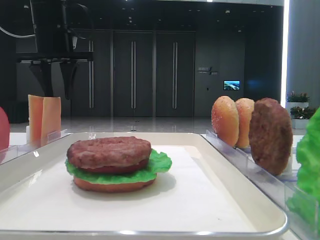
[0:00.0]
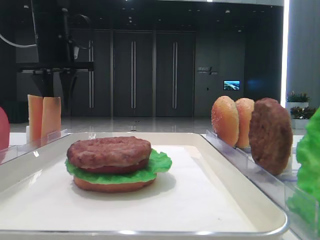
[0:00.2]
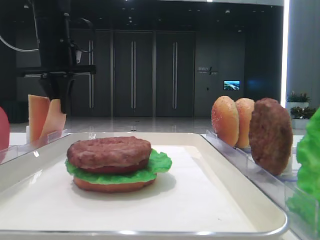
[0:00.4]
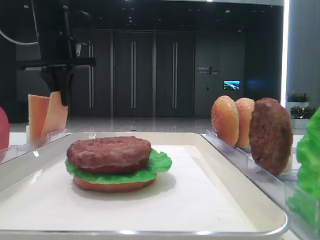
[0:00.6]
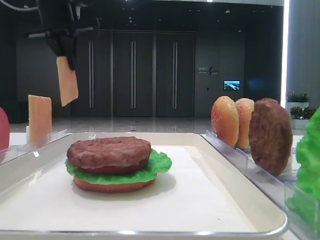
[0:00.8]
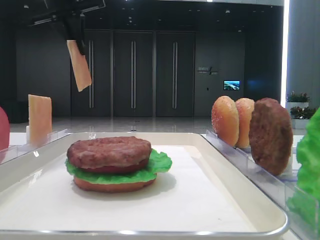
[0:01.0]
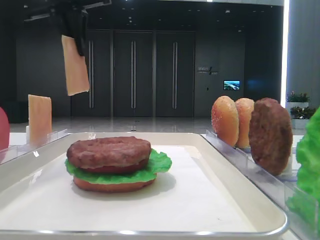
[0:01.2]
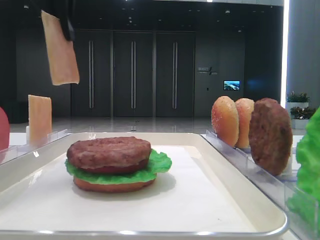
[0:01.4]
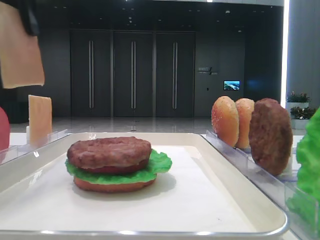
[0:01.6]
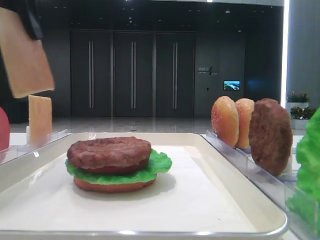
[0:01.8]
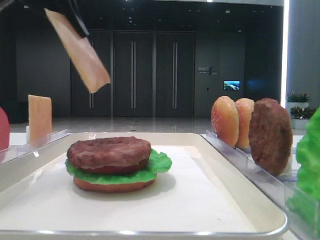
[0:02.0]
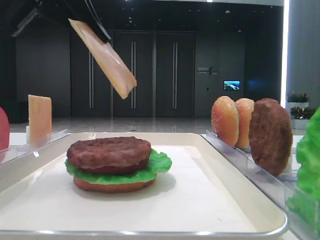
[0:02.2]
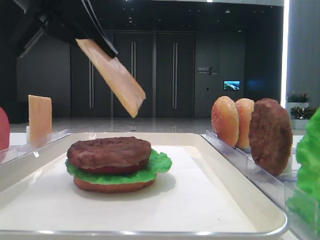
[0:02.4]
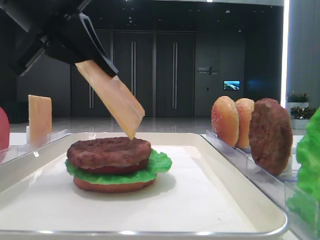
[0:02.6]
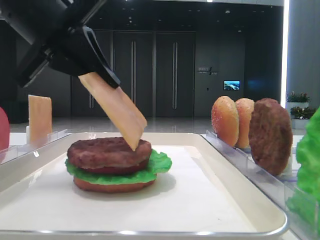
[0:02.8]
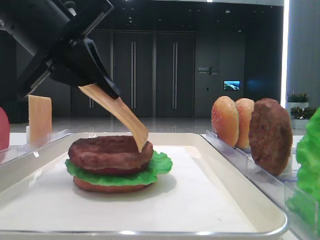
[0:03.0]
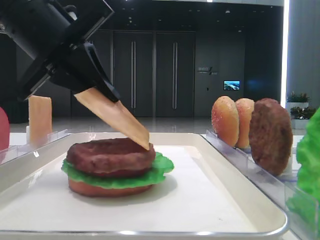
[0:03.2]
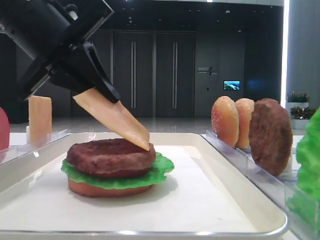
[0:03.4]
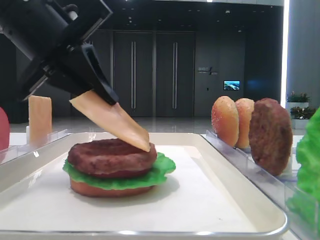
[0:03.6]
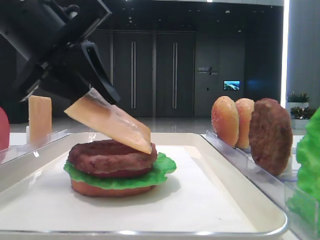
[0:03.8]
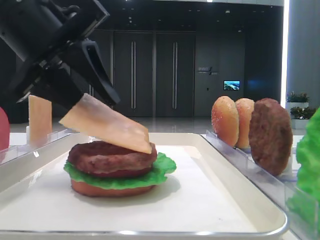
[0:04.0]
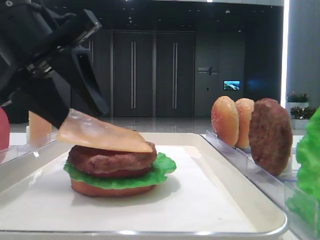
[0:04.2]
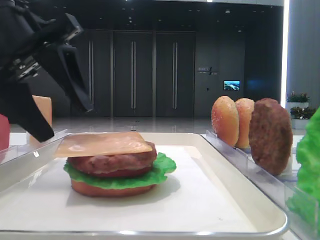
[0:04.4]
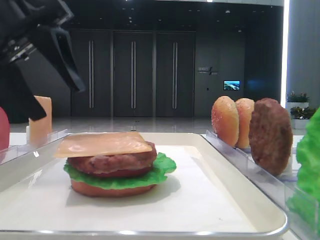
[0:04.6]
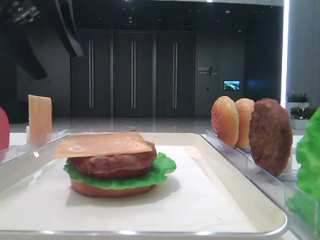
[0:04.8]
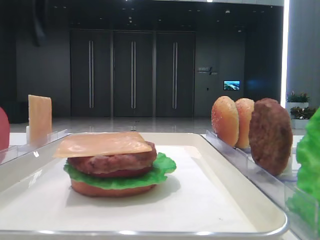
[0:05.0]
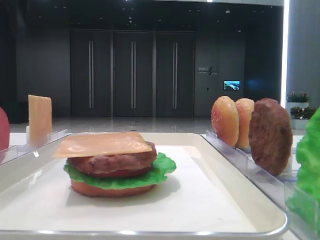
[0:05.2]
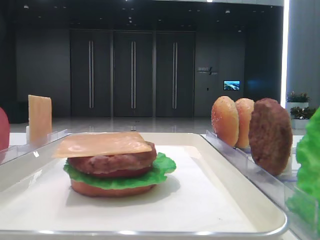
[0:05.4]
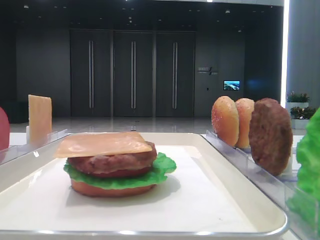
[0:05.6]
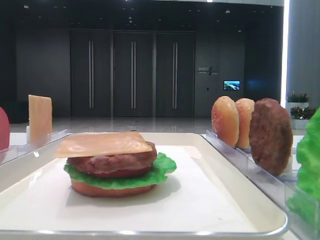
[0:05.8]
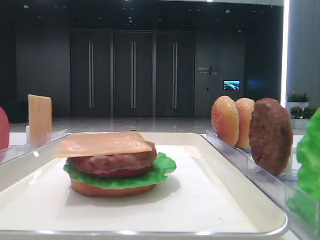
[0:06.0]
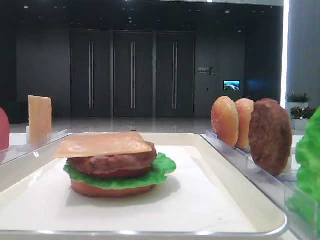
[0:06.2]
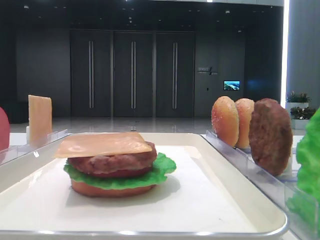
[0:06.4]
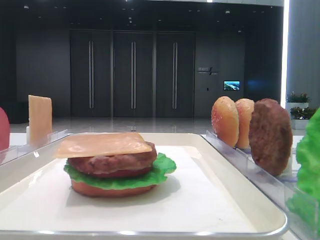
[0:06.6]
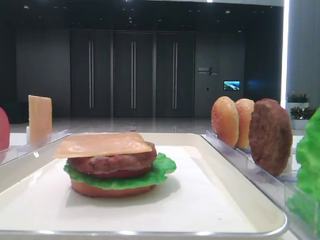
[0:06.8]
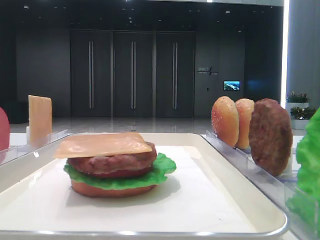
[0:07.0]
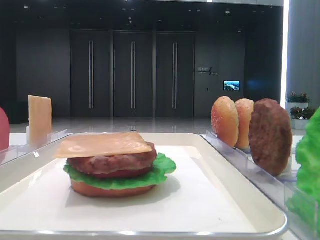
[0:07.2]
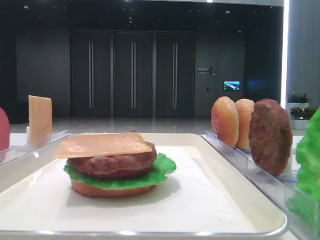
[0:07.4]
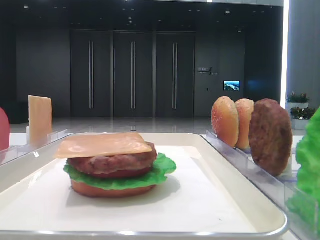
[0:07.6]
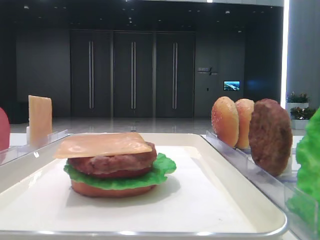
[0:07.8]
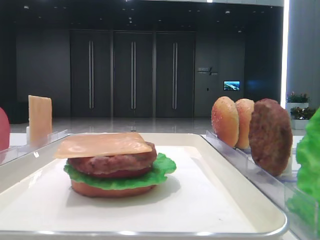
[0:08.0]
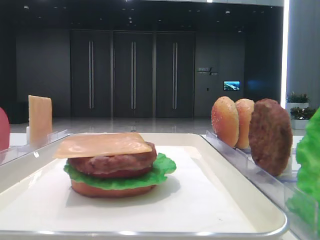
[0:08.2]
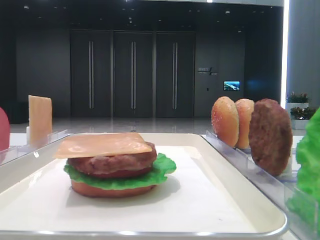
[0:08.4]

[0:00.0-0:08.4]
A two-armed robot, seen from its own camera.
Step, 0:00.8 to 0:04.2: Place the cheese slice on the patty with the left hand.
0:00.0 to 0:01.4: The left gripper heads backward and upward, covering approximately 15 cm, and closes.
0:01.4 to 0:02.8: The left gripper heads downward and backward, covering about 15 cm.
0:02.8 to 0:04.2: The left gripper opens.
0:04.2 to 0:05.6: The left gripper is displaced to the left and upward by about 20 cm.

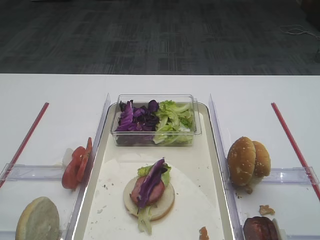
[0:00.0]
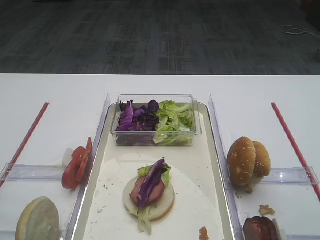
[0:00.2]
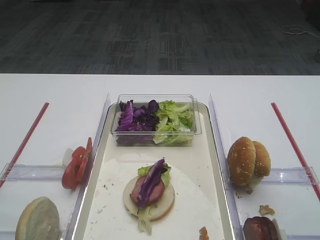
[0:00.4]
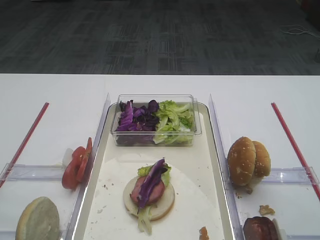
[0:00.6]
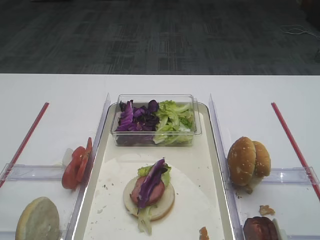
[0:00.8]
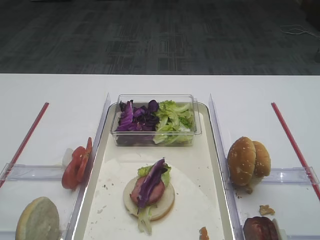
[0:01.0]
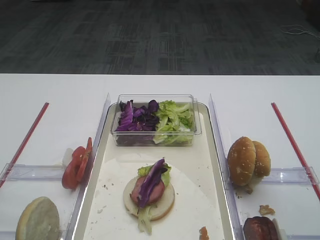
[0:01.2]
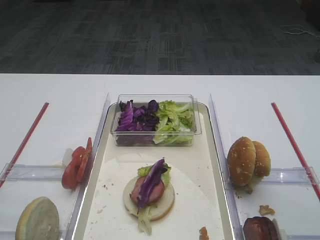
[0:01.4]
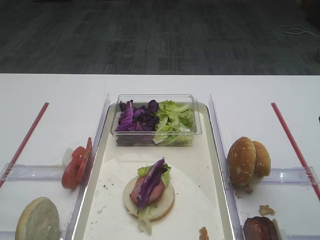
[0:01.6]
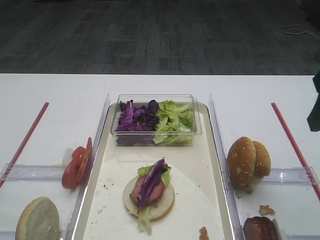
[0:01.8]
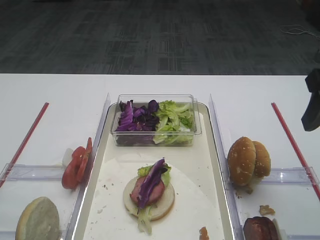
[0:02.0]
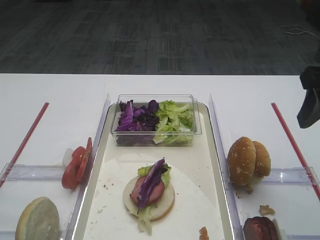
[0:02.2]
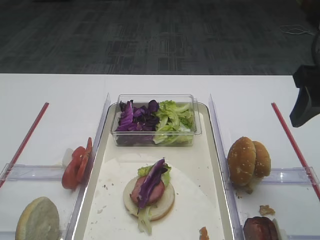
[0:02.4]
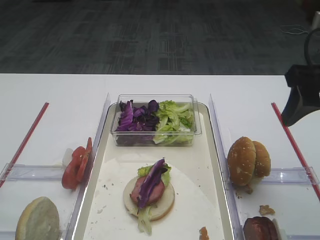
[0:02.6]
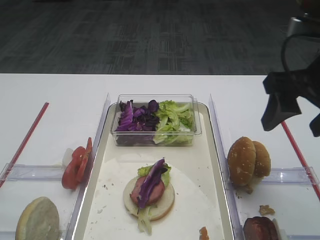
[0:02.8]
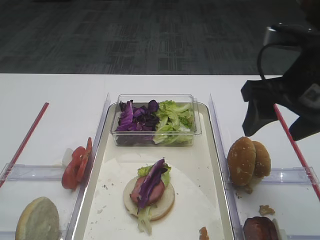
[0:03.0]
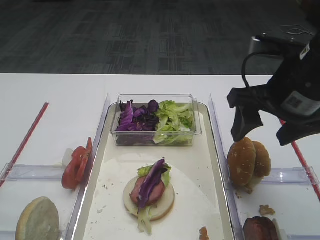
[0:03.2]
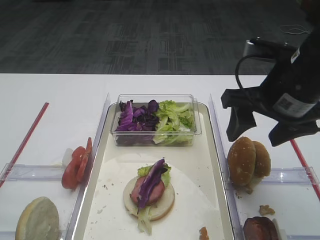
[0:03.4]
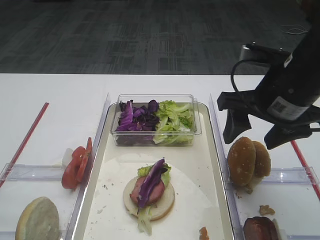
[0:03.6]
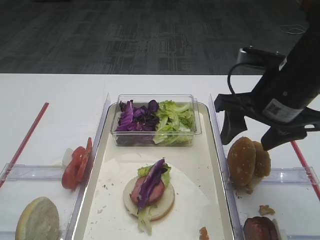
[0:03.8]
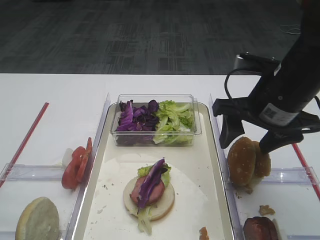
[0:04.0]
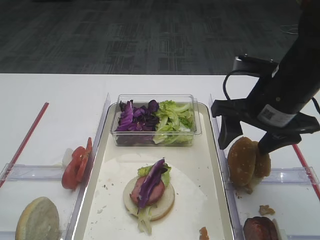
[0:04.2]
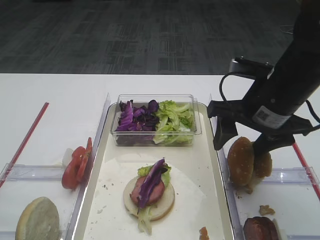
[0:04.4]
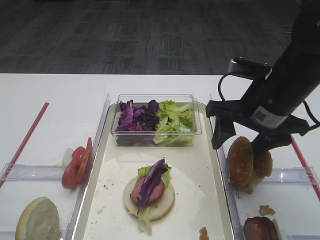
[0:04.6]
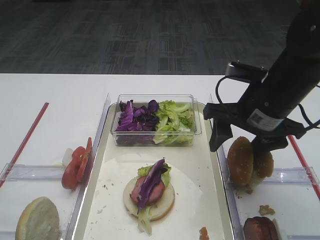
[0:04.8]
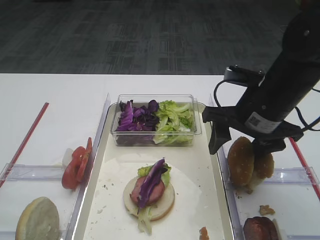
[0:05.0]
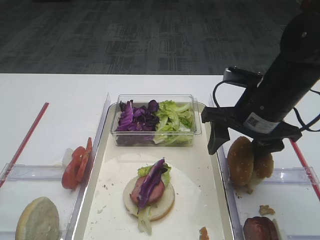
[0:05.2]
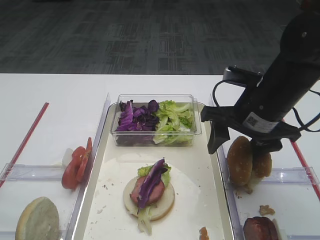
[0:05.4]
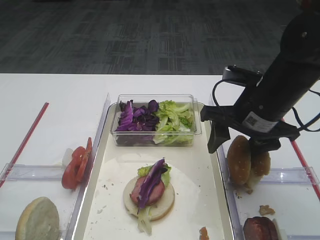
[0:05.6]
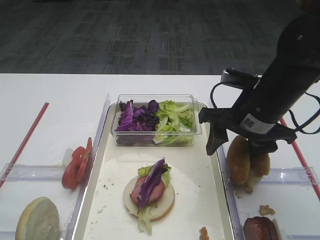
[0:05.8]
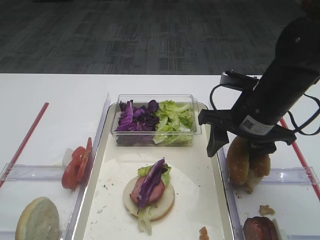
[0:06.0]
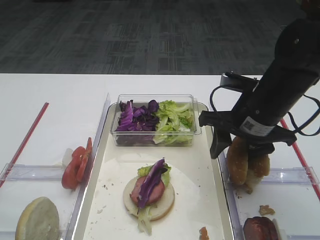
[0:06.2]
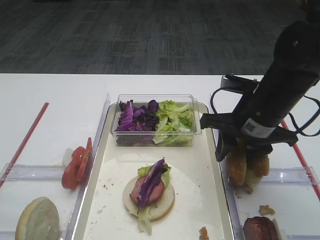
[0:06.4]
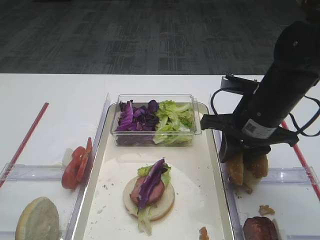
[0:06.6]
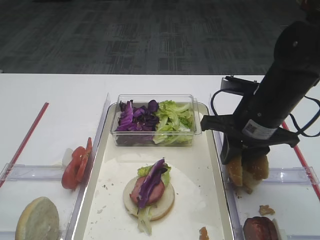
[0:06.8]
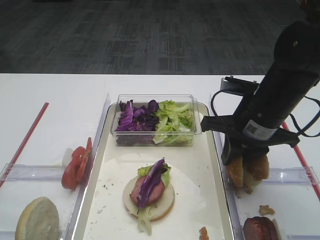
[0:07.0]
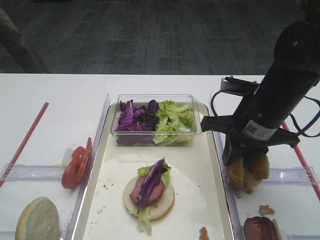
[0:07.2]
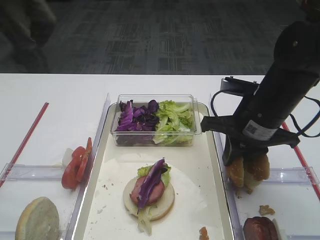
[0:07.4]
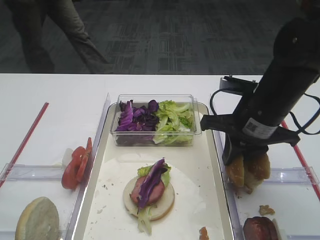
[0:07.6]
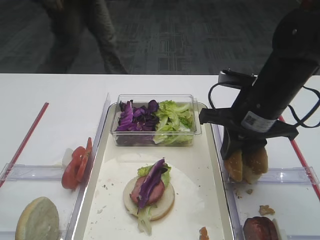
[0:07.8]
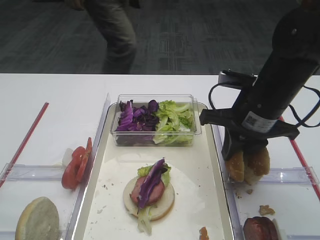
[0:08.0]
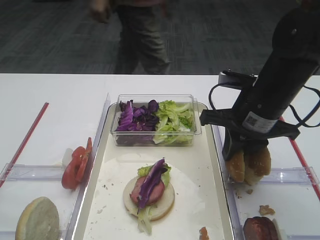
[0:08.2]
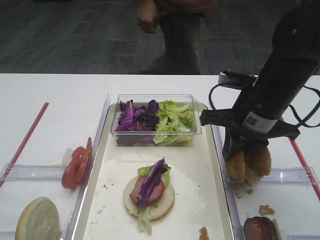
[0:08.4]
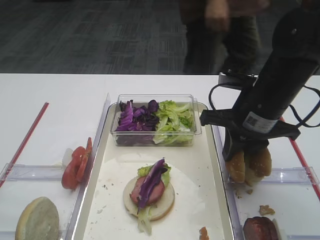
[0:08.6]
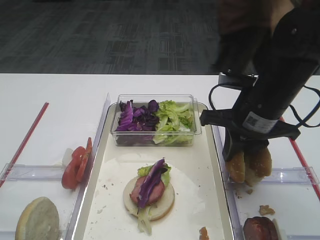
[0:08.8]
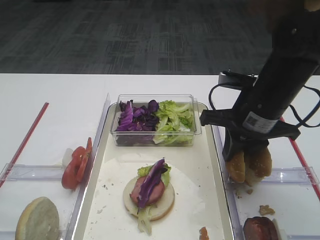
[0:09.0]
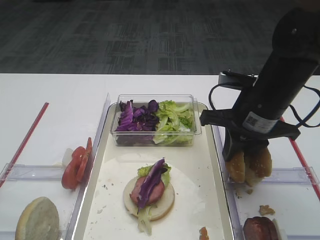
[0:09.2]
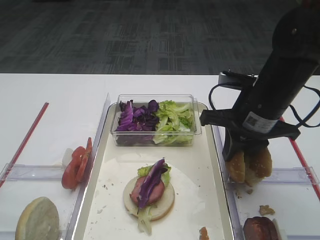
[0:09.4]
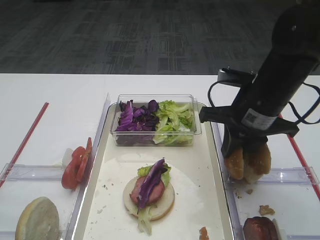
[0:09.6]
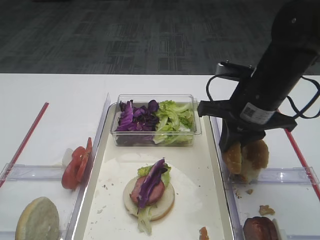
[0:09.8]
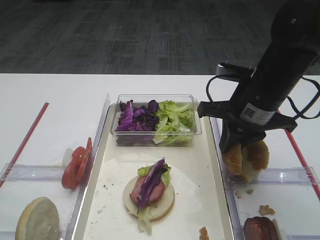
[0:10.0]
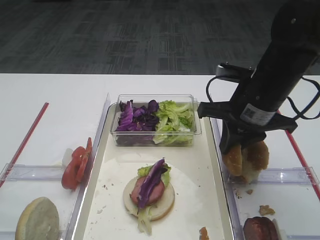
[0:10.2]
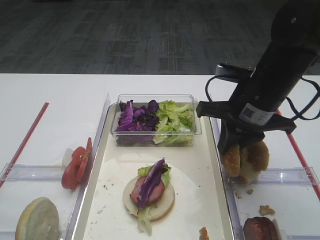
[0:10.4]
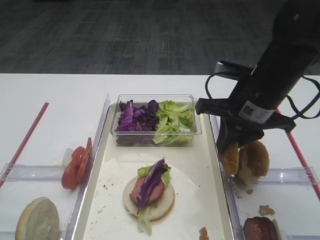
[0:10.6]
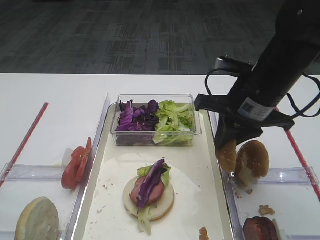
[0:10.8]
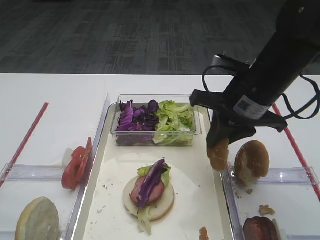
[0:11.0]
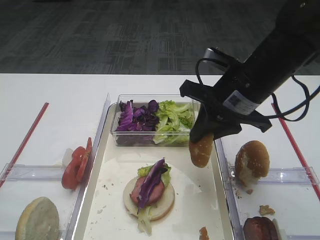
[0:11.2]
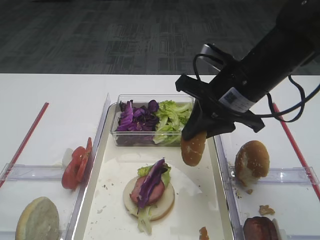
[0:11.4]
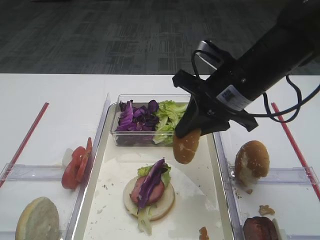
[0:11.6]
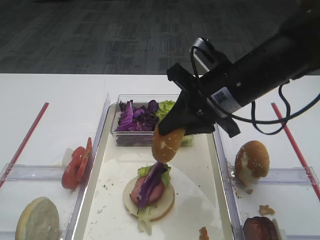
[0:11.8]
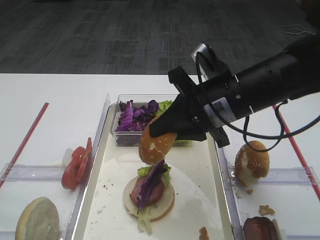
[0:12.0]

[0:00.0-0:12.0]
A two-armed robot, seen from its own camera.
Step, 0:00.0 to 0:10.8: Pick up the hamburger lid with the right gripper.
0:01.6 to 0:03.0: The right gripper shifts roughly 10 cm forward and to the left.
0:03.0 to 0:04.4: The right gripper heads downward, covering approximately 5 cm.
0:04.4 to 0:06.0: The grippers make only small movements.
0:06.0 to 0:07.6: The right gripper closes its fingers.
0:07.6 to 0:09.0: The two grippers keep their place.
0:09.0 to 0:10.4: Both grippers stay about where they are.

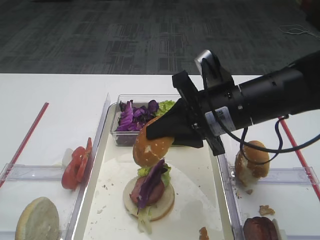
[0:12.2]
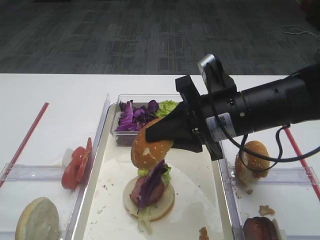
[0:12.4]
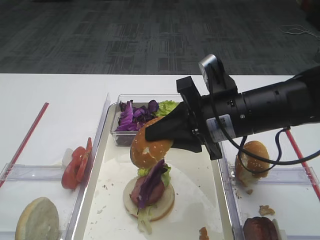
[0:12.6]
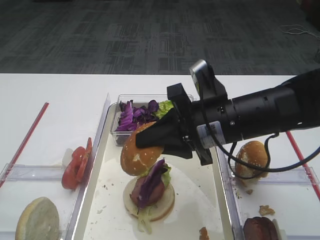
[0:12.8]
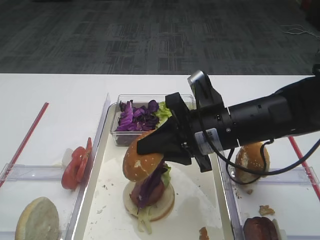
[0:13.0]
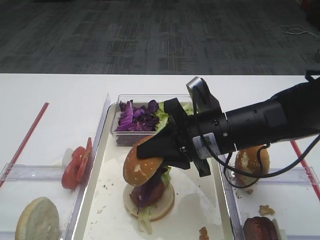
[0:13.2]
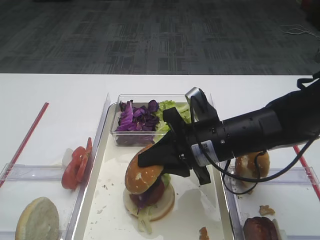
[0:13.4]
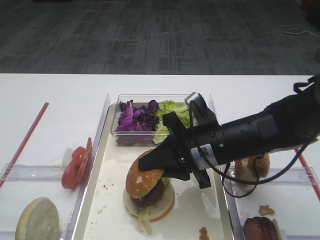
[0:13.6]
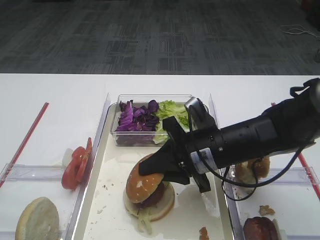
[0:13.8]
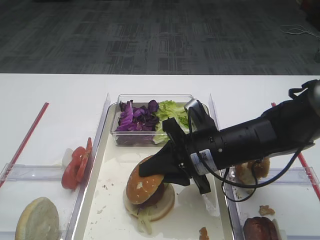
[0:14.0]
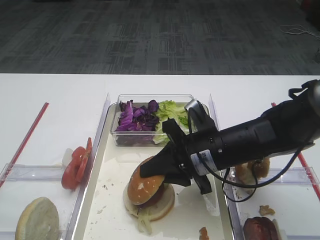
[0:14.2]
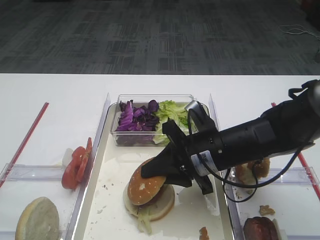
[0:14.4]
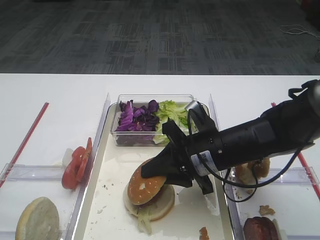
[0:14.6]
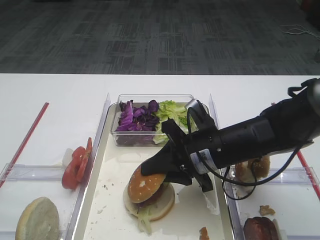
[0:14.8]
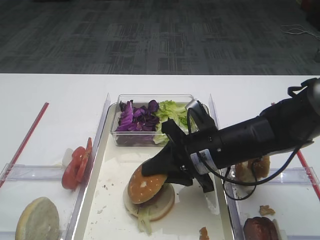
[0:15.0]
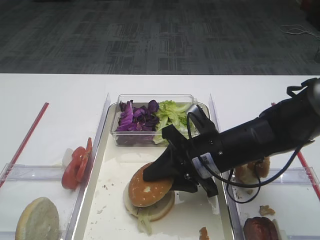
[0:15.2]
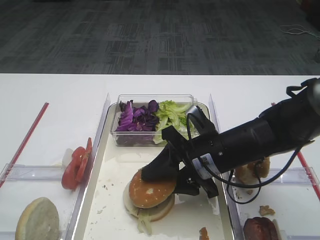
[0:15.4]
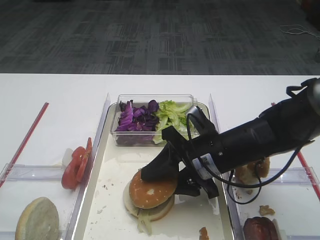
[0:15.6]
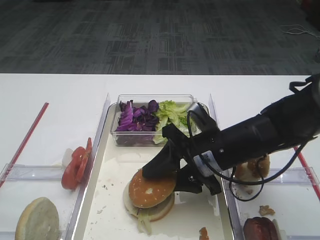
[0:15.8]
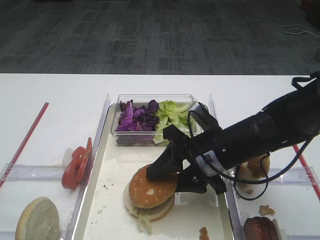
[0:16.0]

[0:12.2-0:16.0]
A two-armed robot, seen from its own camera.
0:12.2 to 0:13.4: The right gripper goes roughly 5 cm downward.
0:13.4 to 0:14.8: The grippers stay close to where they were, moving slightly.
0:14.8 to 0:16.0: The right gripper opens its fingers.
